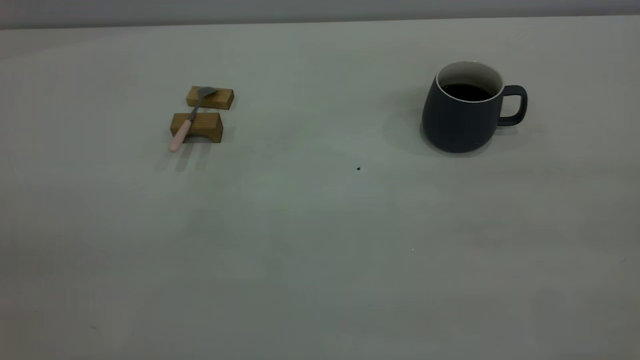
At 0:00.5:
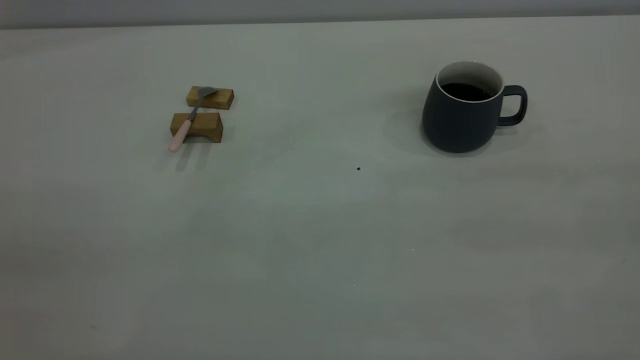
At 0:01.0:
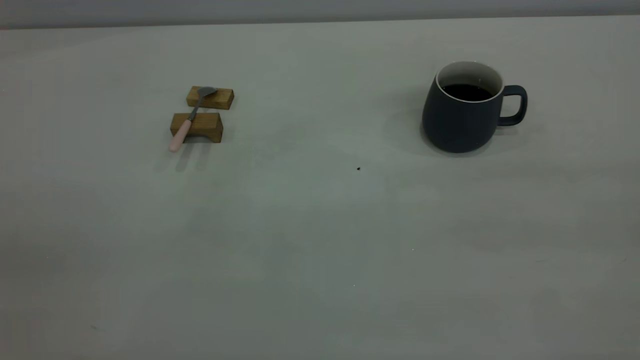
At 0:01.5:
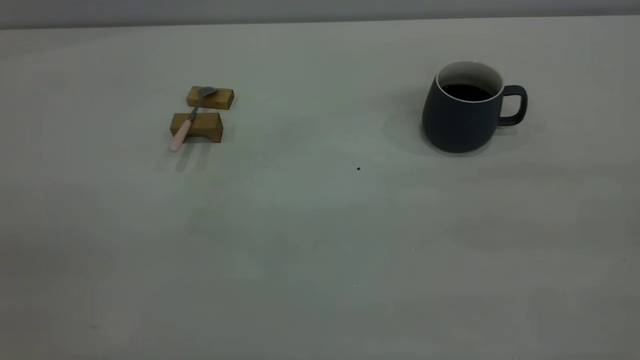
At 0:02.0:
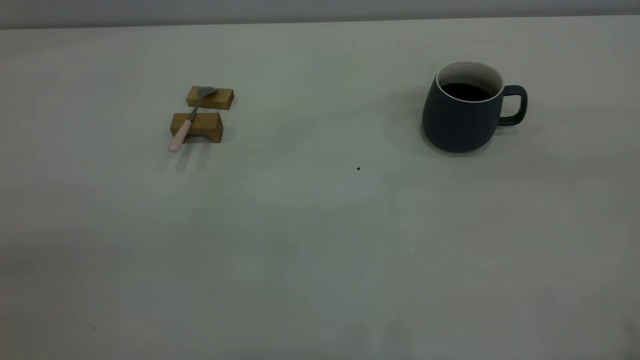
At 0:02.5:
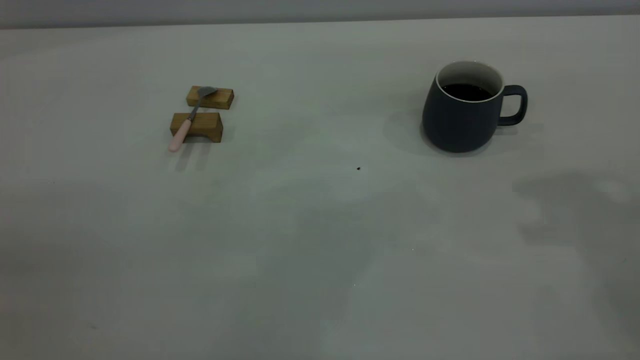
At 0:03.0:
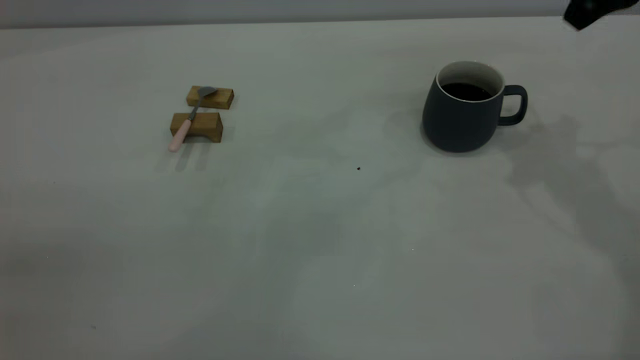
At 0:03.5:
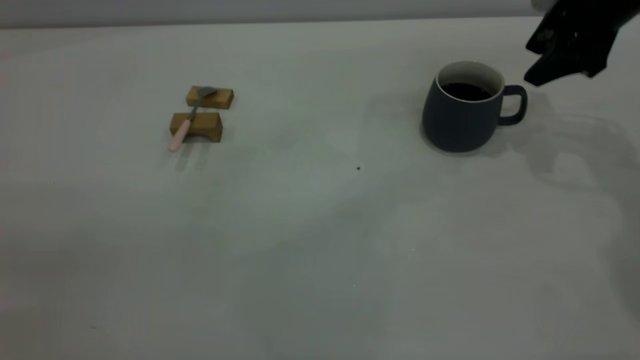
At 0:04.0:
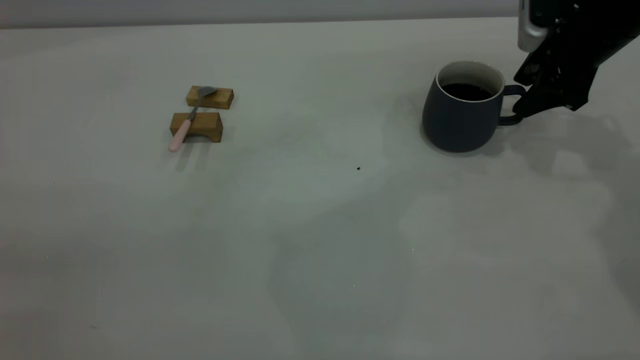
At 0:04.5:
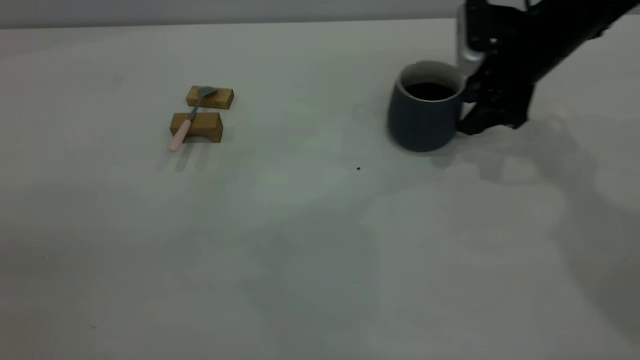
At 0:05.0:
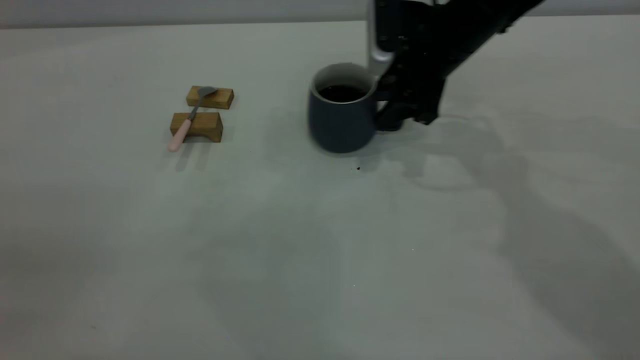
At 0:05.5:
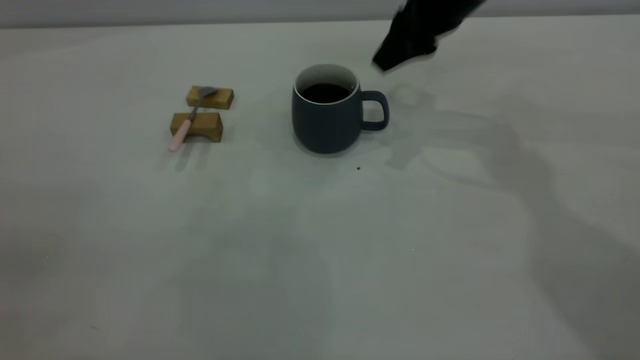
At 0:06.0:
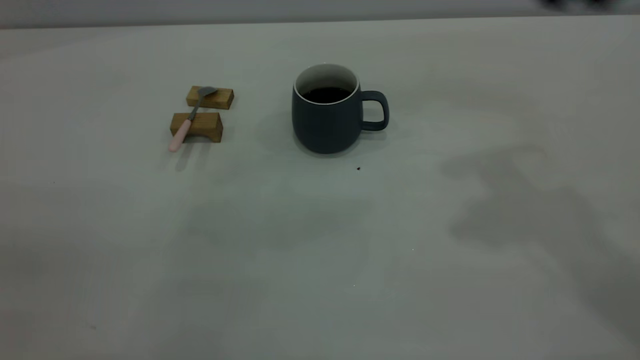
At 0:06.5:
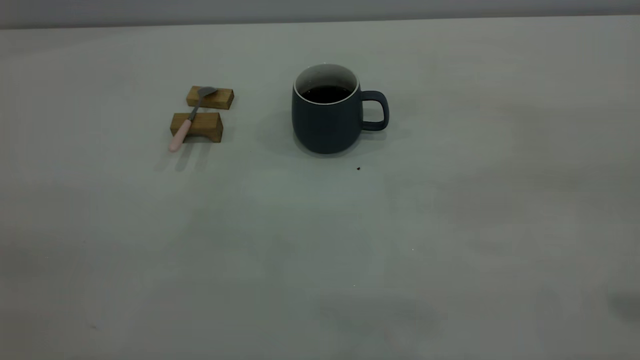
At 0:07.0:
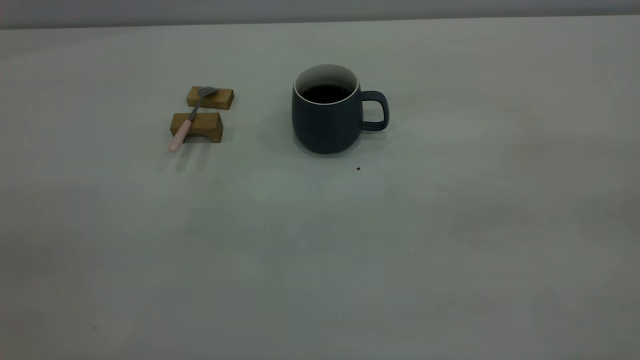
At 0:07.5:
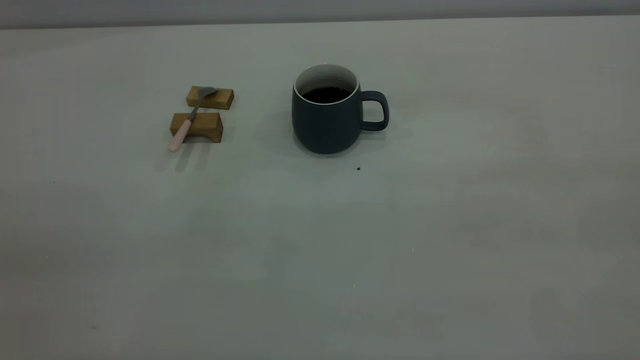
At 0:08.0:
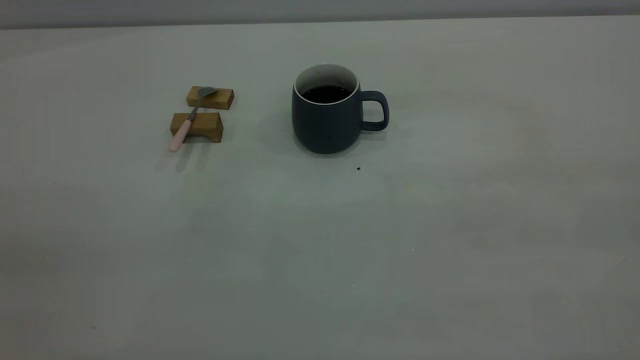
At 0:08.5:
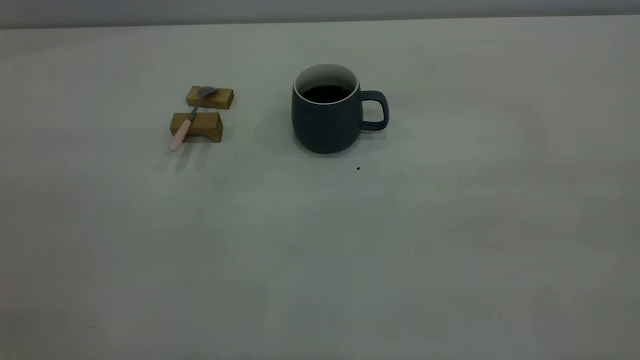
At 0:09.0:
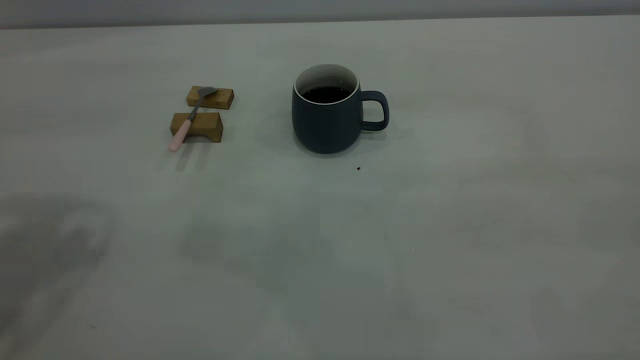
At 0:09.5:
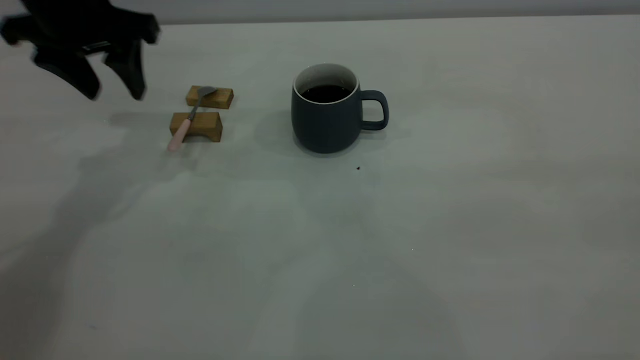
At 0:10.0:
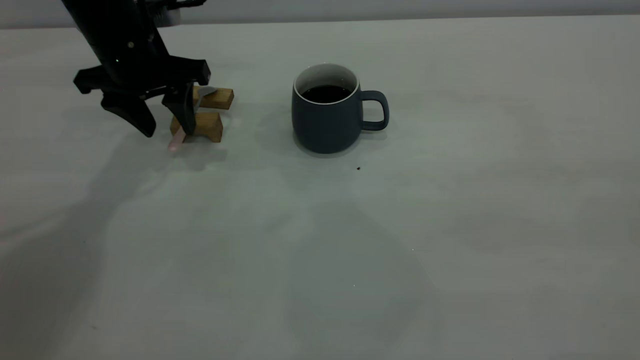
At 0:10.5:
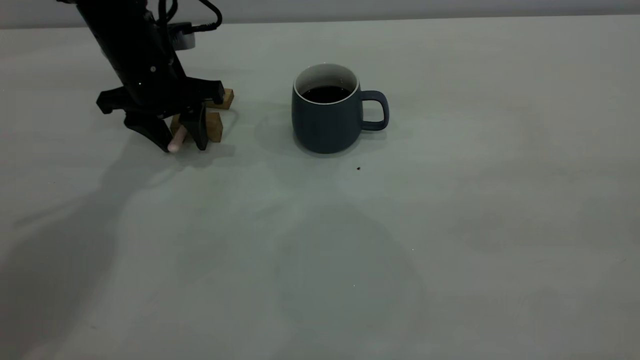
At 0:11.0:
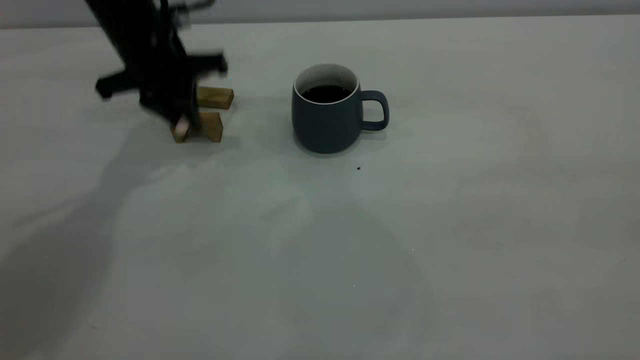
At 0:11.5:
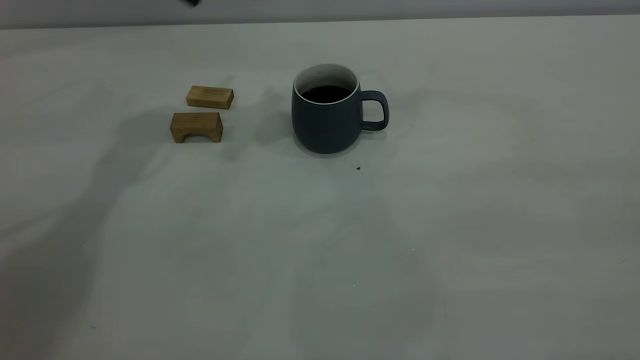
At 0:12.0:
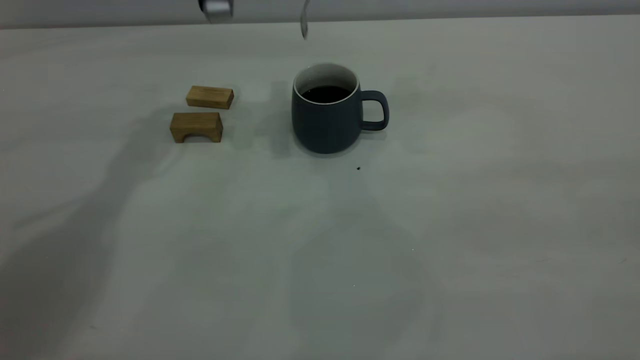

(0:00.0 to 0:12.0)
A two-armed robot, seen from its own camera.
Step, 0:00.0 - 0:05.0: Move the cup with coffee to the center of view.
Step, 0:05.5 - 0:11.0: Pick up the spoon.
0:02.0 - 0:04.0: The right gripper is displaced forward and downward by about 40 cm, and opens up.
0:04.0 - 0:06.0: The right gripper goes about 25 cm upward and backward, and closes.
0:08.0 - 0:10.0: The left gripper shifts about 50 cm forward and downward, and opens.
0:10.0 - 0:12.0: The left gripper moves to the right and upward, approximately 15 cm, and closes.

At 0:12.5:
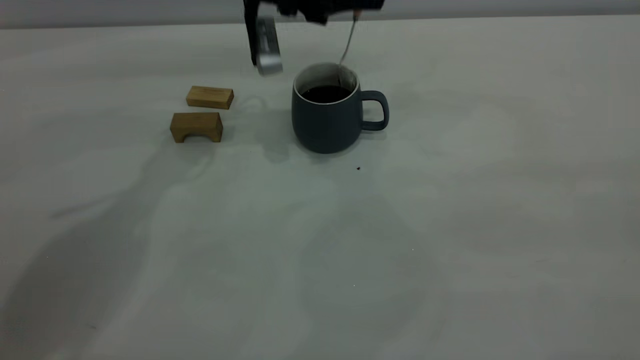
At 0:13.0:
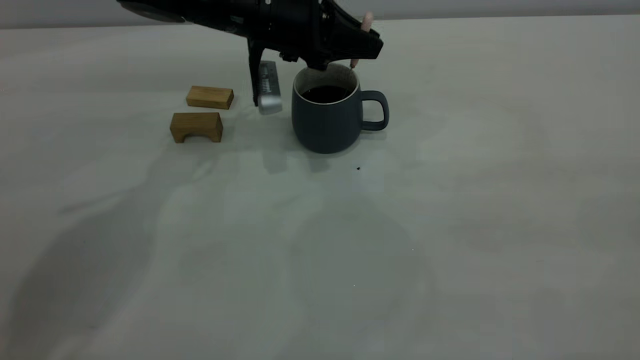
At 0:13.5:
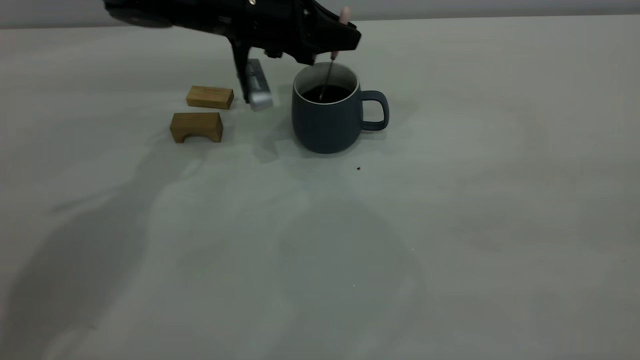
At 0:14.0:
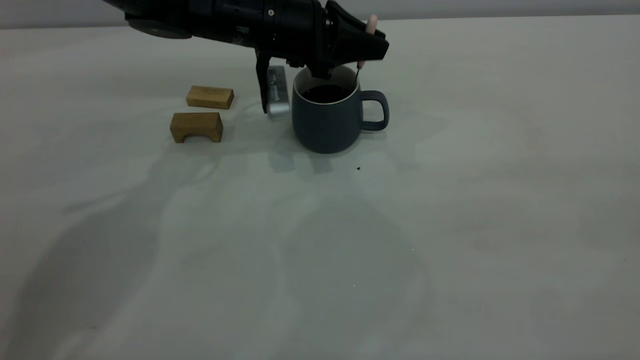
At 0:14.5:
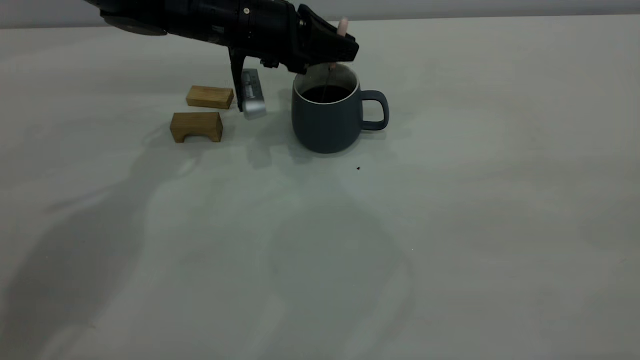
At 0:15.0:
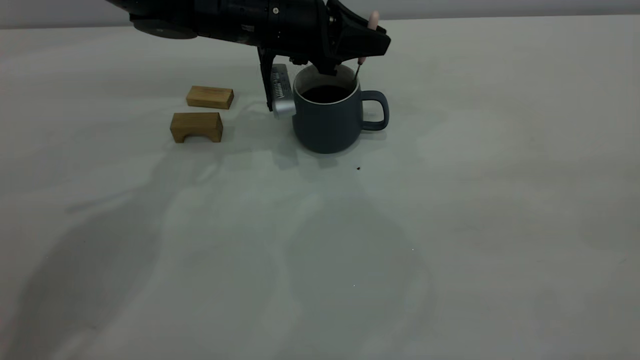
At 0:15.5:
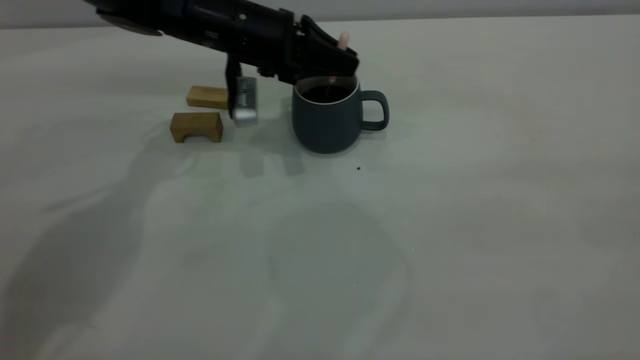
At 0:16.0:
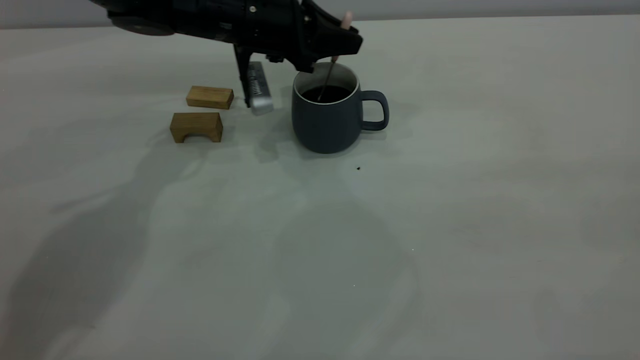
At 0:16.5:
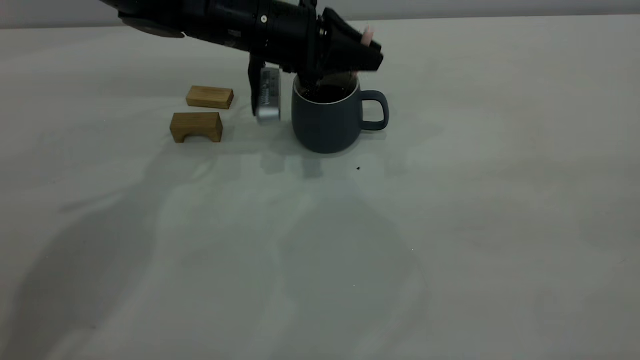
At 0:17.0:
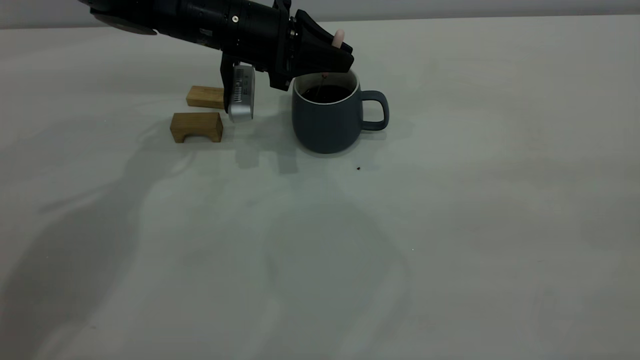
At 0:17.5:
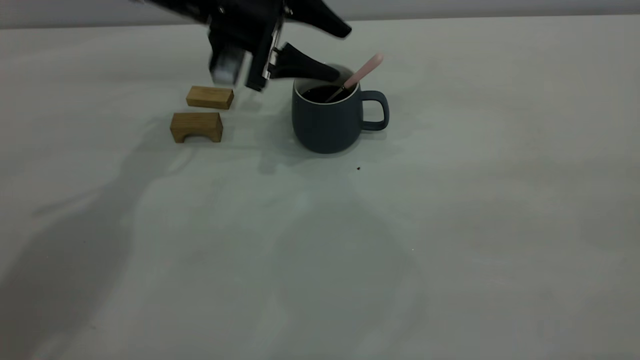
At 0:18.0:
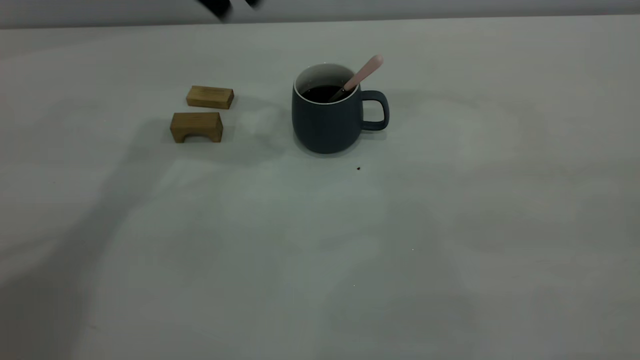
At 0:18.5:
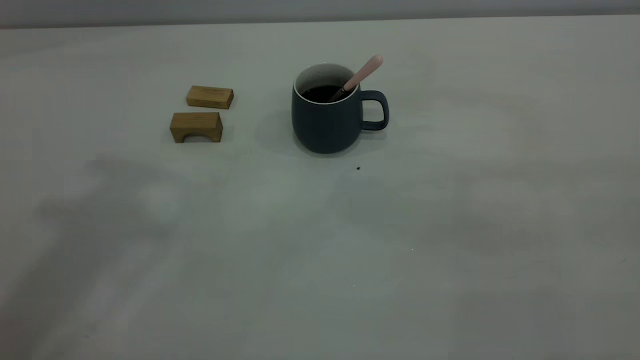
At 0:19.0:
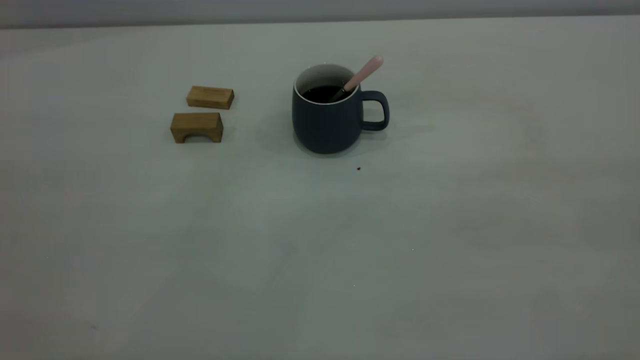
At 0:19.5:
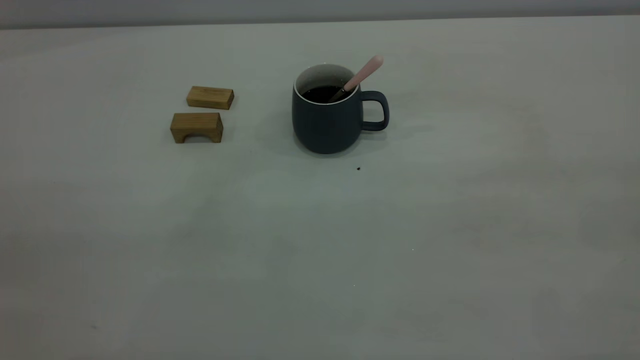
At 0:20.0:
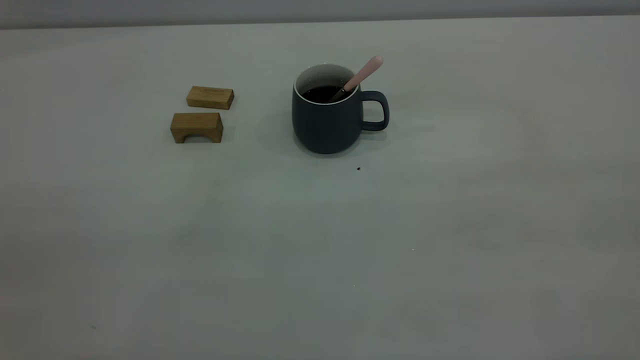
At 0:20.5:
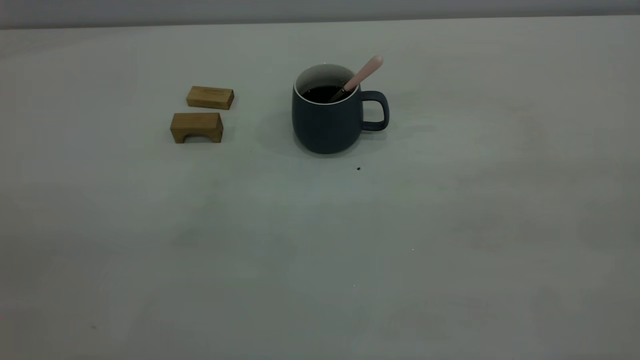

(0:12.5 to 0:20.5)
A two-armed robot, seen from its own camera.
Step, 0:12.5 - 0:17.5: Stir the coffee in the cup.
0:12.5 - 0:14.5: The left gripper shifts approximately 5 cm downward.
0:14.5 - 0:16.5: The grippers make only small movements.
0:16.5 - 0:18.5: The left gripper travels upward and backward by roughly 40 cm, and opens its fingers.
